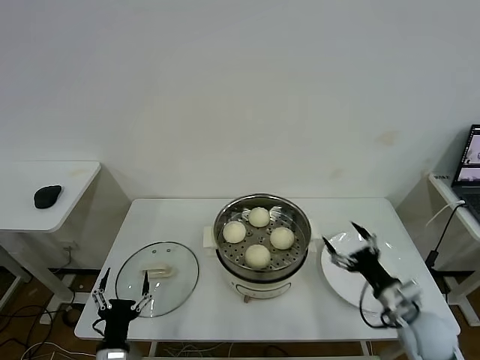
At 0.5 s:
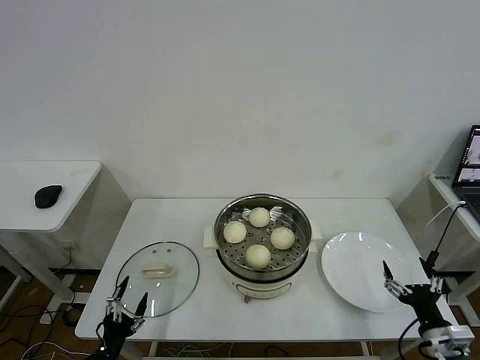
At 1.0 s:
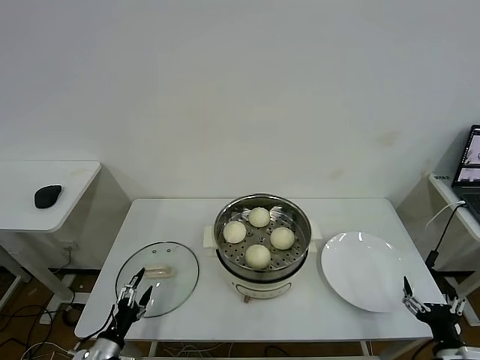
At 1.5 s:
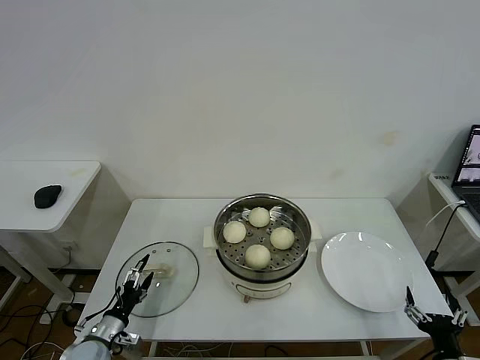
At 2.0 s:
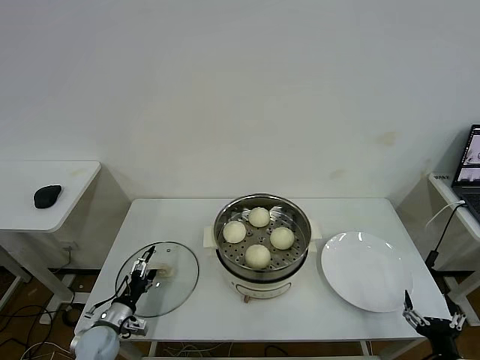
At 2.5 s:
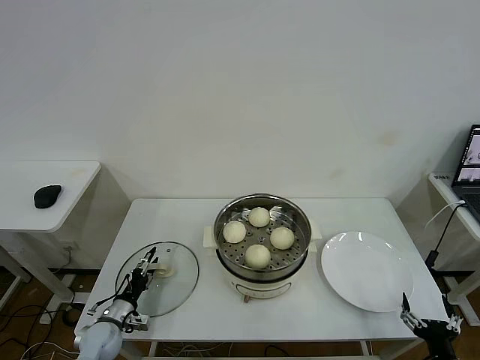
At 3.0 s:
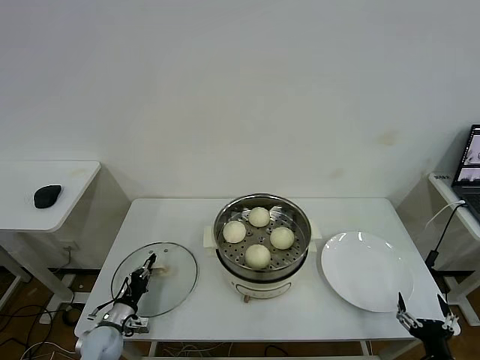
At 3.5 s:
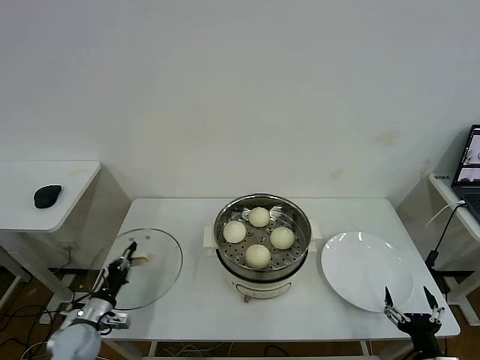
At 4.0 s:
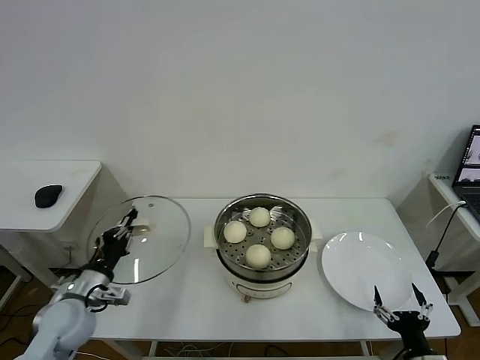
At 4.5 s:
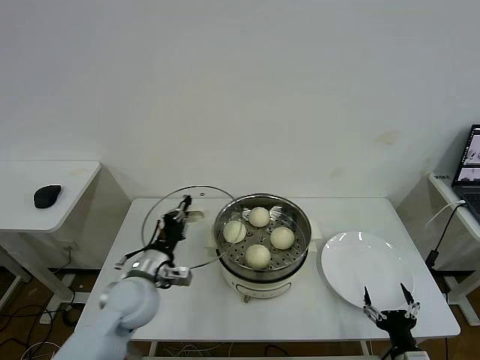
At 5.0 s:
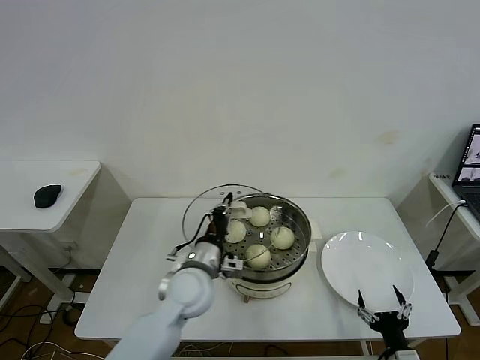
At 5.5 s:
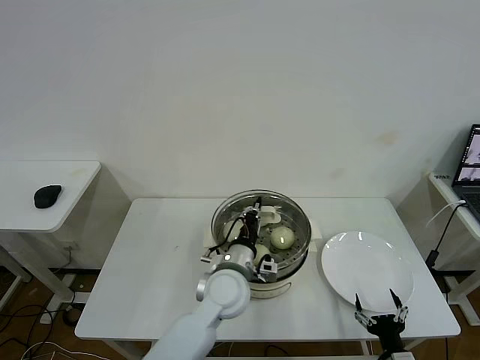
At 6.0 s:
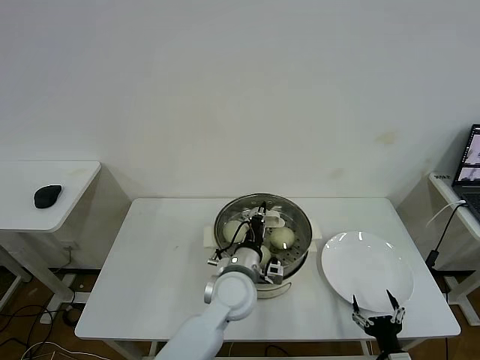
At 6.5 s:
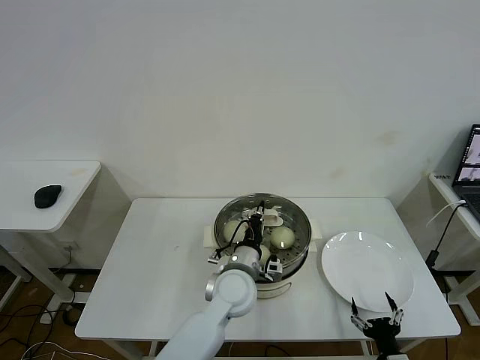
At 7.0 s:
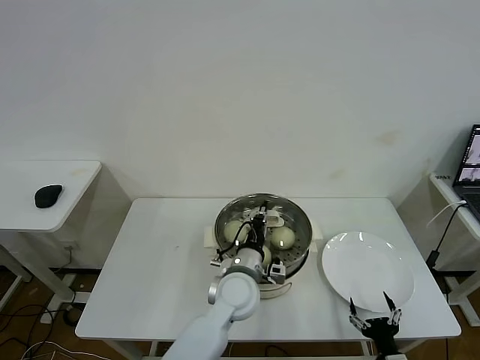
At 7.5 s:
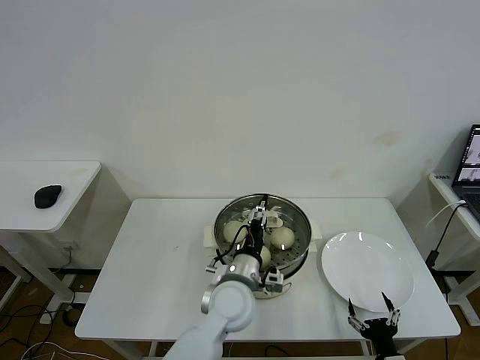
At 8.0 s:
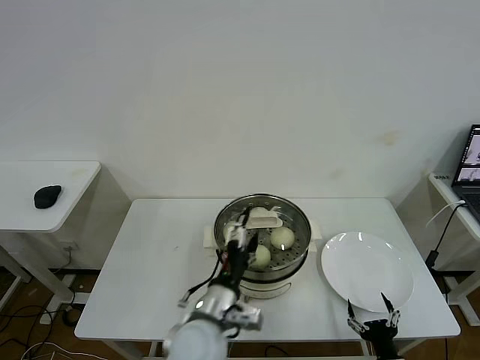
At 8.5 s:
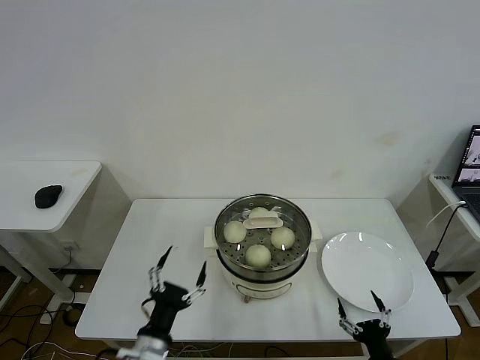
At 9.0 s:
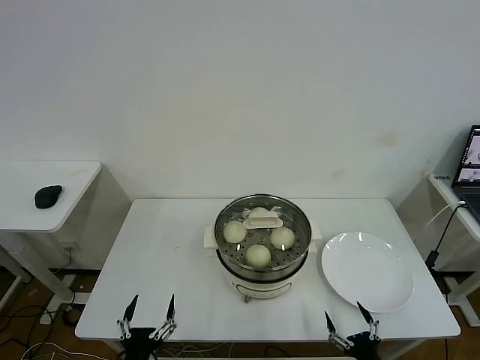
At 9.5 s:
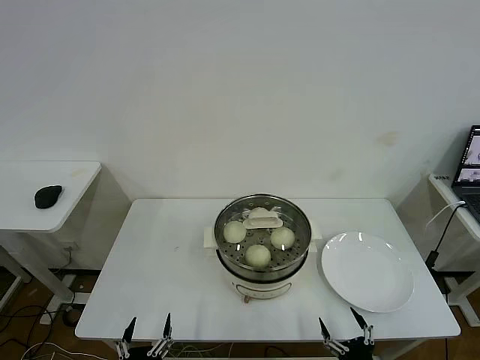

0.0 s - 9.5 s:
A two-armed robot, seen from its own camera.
Task of the whole recording: take steamed baozi put them in steamer then cover it.
Step, 0.0 s - 3.0 s: Grasp the pot lid with left gripper.
Step, 3.5 s - 7.5 s: Place the pot lid on the steamer with left gripper.
0.0 s - 2.0 s: The left gripper goes approximately 15 cm forward, to the left and downward. The right gripper shifts some 15 cm backward.
2.0 s - 4.0 s: The left gripper is displaced upward by about 15 cm, and closes.
4.0 s - 5.5 s: The right gripper moves about 5 cm, while the left gripper moves to the right, roughly 30 cm.
5.5 s - 7.5 s: The left gripper opens.
7.5 s - 9.5 s: The left gripper shifts roughly 35 cm backward, to the left and downward, and opens up. Meanwhile the right gripper changes place by some 5 cm.
